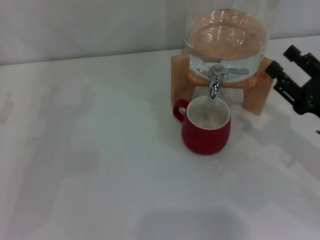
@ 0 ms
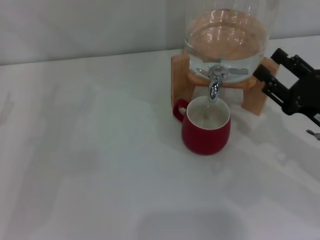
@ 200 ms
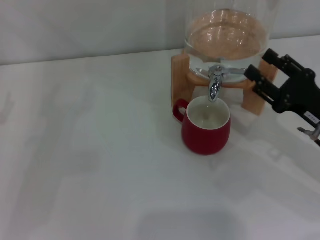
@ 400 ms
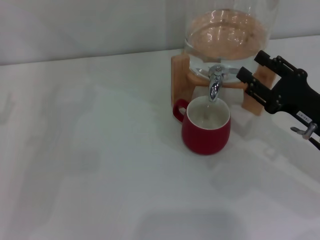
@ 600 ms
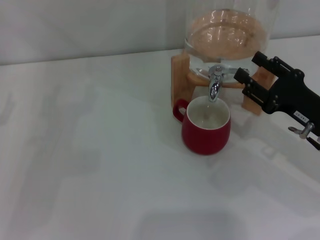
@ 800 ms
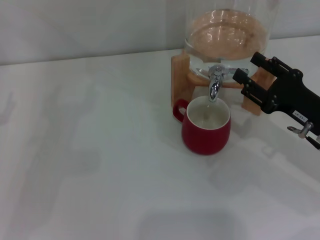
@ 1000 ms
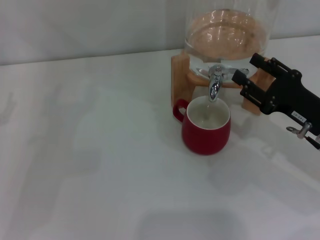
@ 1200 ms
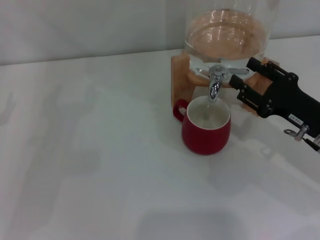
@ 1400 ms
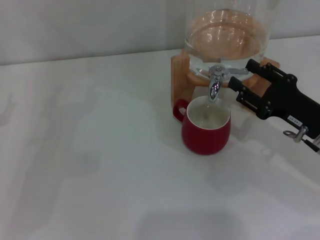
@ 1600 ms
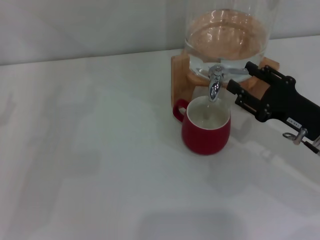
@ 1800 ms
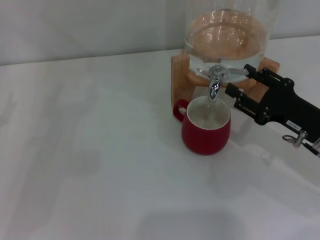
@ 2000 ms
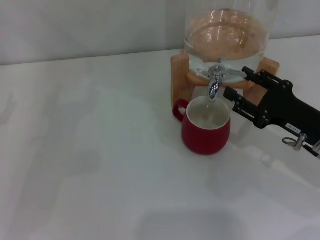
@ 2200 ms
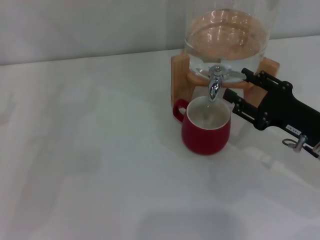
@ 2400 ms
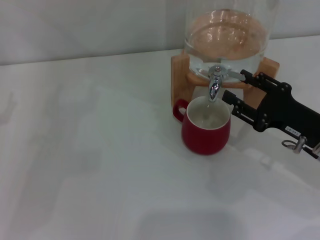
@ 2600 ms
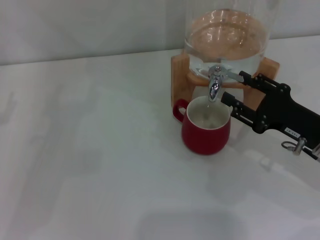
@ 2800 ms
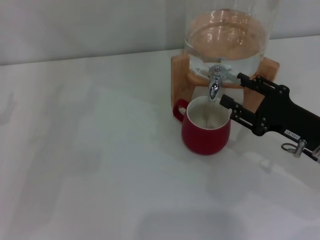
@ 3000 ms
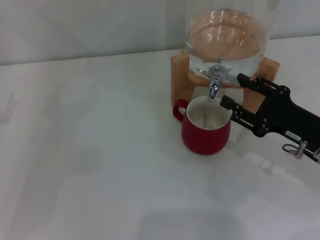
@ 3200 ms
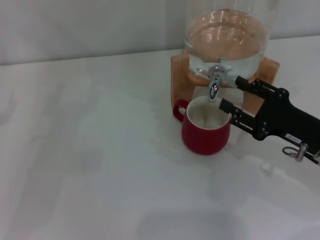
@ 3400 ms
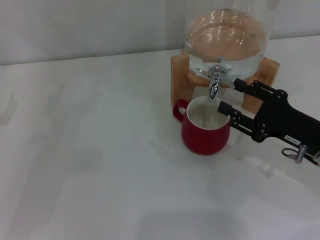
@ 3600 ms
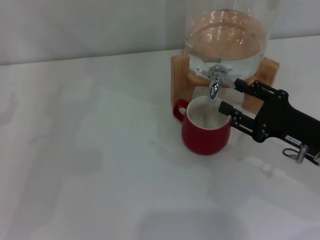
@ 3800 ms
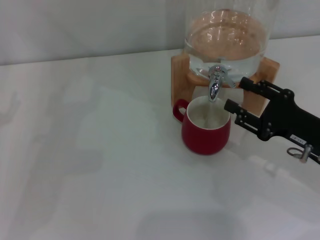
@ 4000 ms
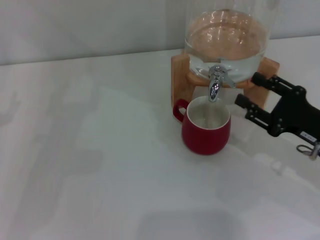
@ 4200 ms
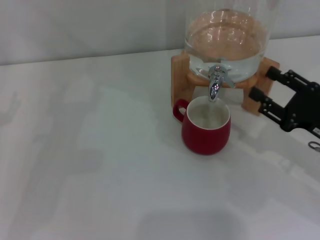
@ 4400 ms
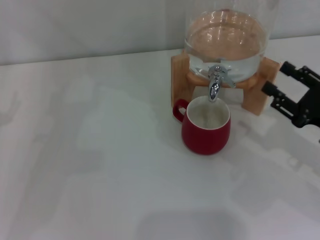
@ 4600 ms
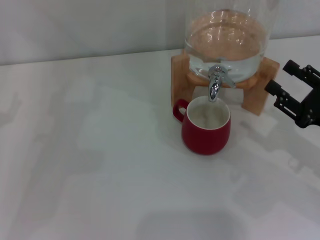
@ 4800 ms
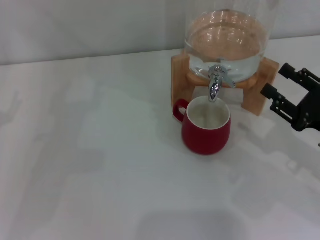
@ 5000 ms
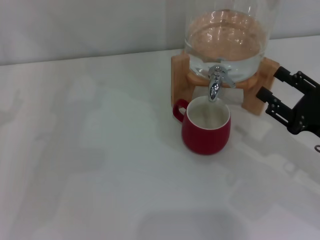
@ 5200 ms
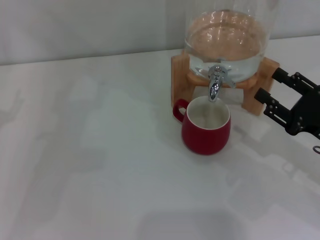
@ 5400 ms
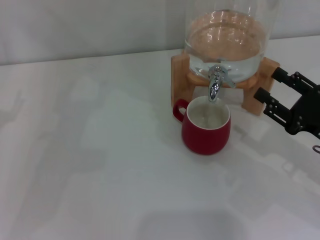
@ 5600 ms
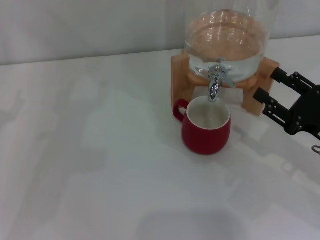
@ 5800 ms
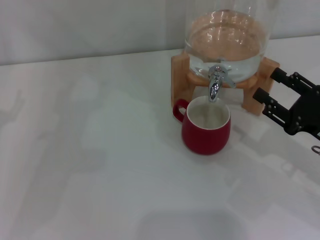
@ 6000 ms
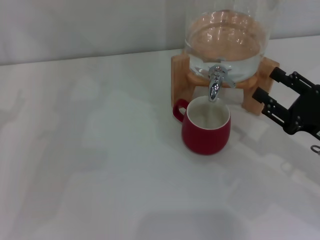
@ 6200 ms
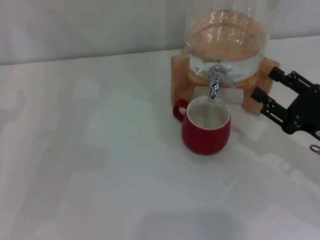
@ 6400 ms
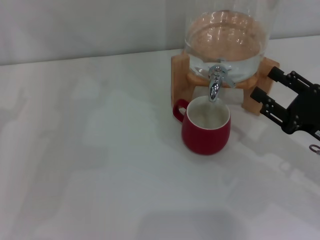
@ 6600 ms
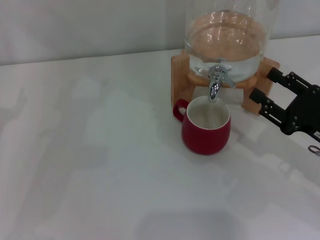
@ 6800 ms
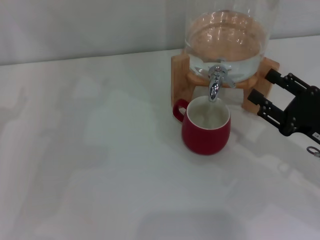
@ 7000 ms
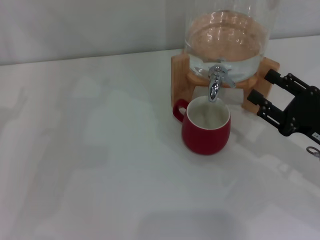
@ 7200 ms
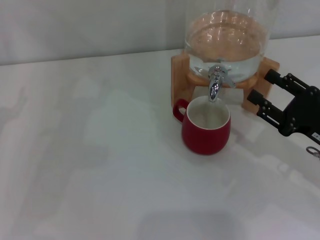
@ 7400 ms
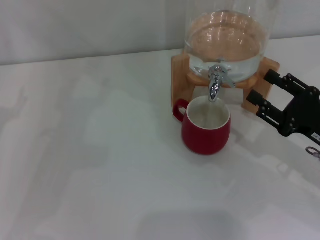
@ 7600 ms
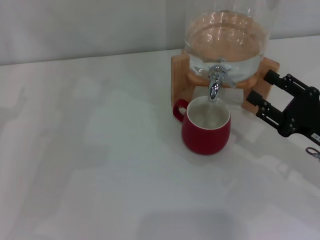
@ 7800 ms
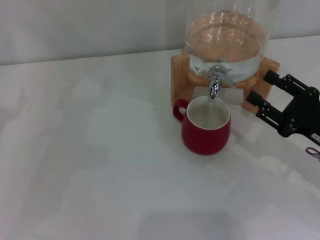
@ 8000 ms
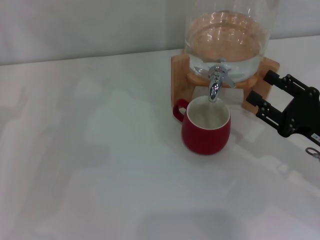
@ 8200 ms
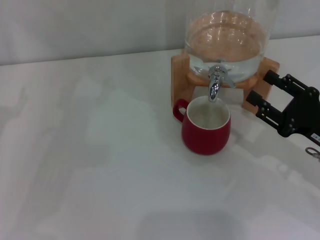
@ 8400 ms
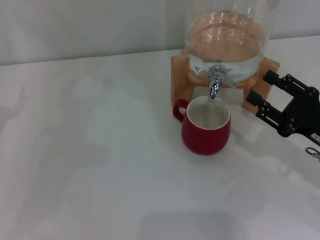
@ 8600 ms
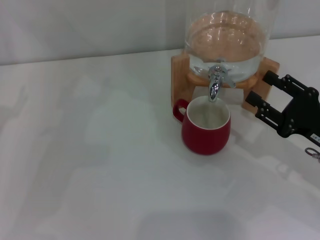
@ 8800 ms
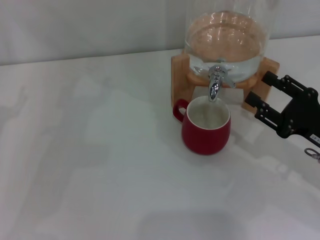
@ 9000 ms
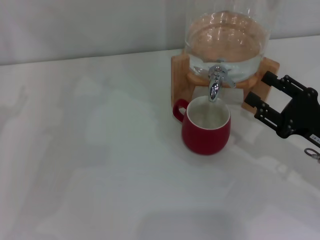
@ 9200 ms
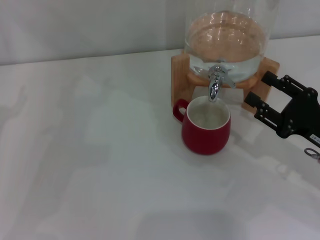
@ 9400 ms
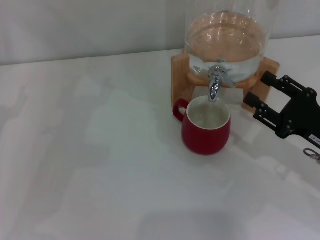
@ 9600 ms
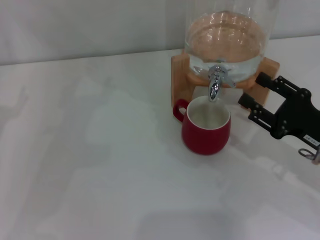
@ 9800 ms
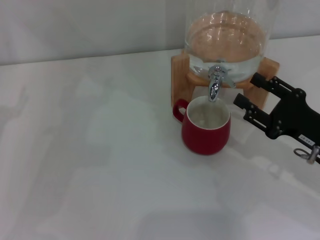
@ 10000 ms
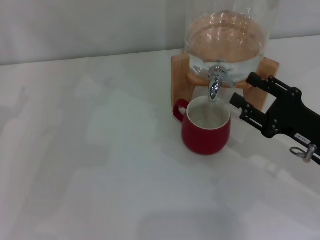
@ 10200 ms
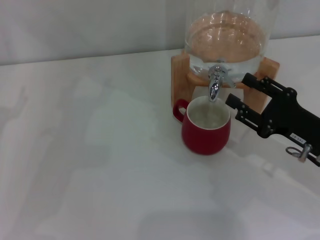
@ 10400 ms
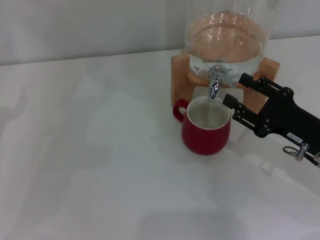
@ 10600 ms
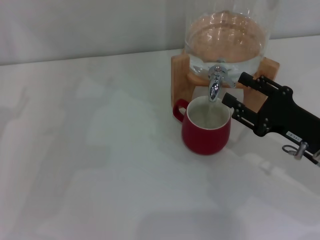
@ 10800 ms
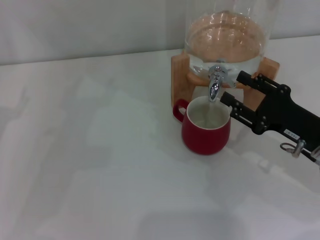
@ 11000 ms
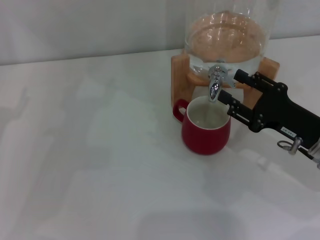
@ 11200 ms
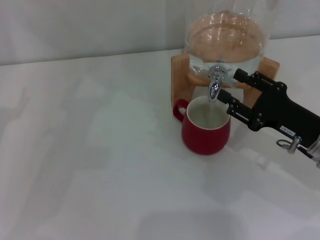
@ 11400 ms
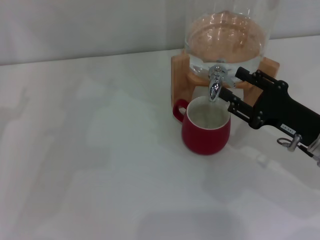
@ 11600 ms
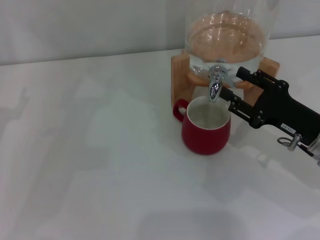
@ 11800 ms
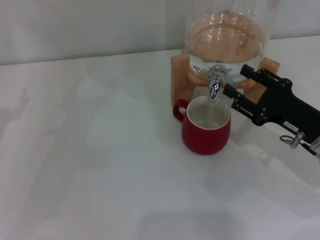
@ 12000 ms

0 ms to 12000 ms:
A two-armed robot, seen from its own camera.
Task of the whole recording: the left gripper pick up the red cup and place it horizontally under the faucet, the right gripper turn on the faucet to fill the cup, and then turn off the faucet.
Step, 0 ms to 4000 ms: Open the dispenser valve and fill the cup with water with the right gripper.
0 ms to 6000 ms: The grippers stay close to where they were, moving slightly.
6000 ms to 9000 ms: Neither gripper changes place.
9000 ms to 12000 ms: The grippers move only a little.

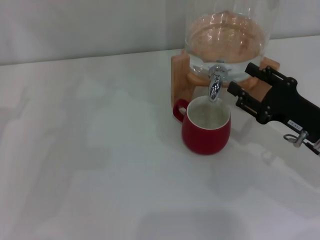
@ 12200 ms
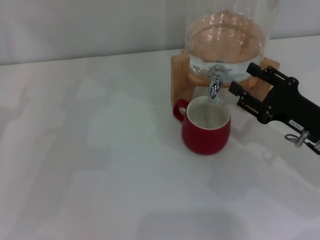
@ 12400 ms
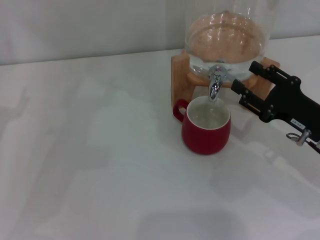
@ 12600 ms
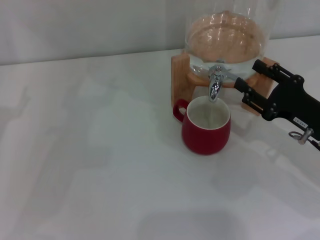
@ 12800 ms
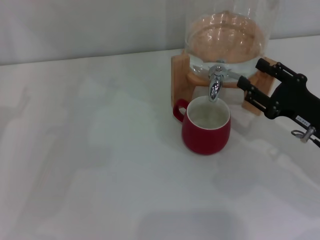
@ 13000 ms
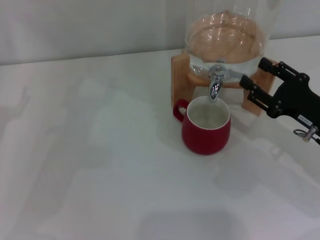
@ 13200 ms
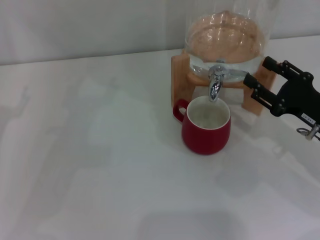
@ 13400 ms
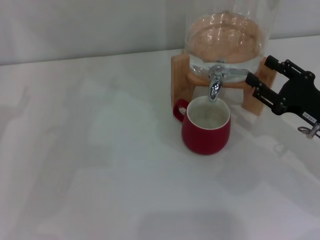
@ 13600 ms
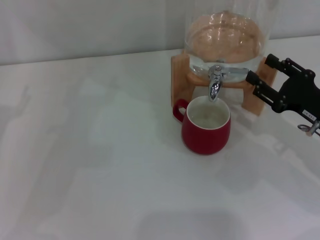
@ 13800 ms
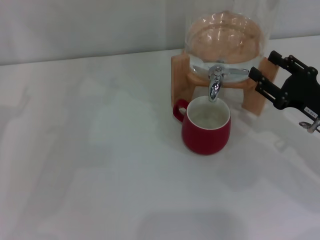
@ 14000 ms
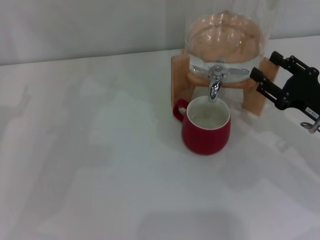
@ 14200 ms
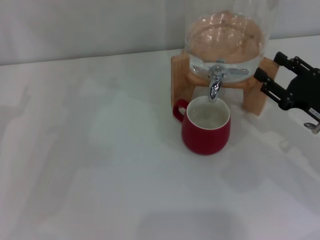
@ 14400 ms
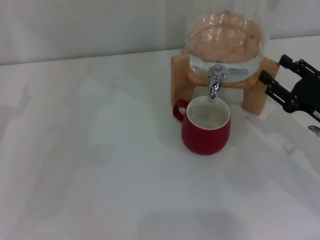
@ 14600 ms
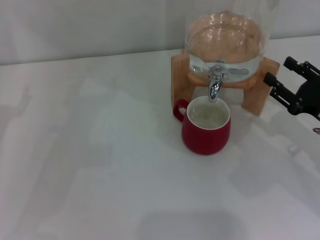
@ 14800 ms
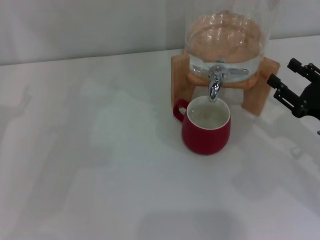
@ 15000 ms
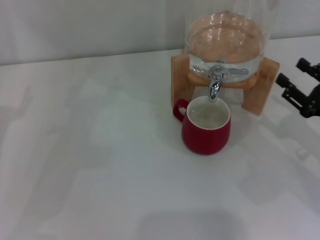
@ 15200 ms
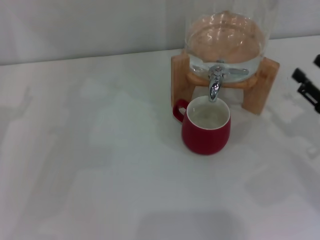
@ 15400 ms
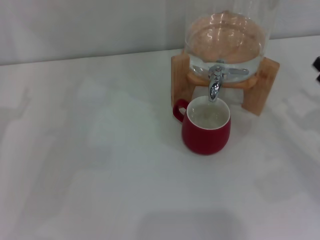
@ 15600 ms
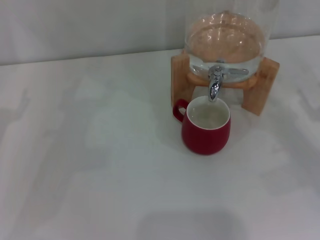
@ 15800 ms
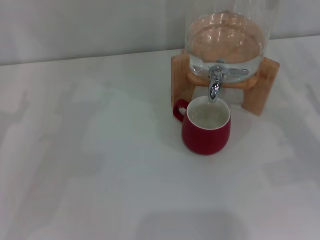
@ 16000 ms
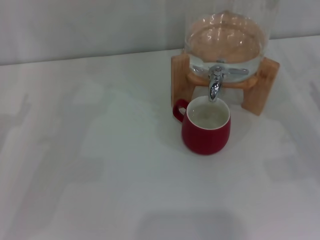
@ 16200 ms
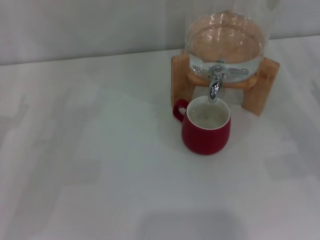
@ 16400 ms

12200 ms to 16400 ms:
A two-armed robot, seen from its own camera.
Task of the whole recording: the left gripper pick up the red cup and place it horizontally under the faucet, the right gripper turn on the faucet to fill the cup, and then turn off the faucet.
Step, 12200 ms to 14200 ms: Close the dispenser valve with the right gripper.
12200 ms to 15000 ms: The grippers move only a little.
15000 ms to 16400 ms: The right gripper is displaced to the right by about 5 cm.
